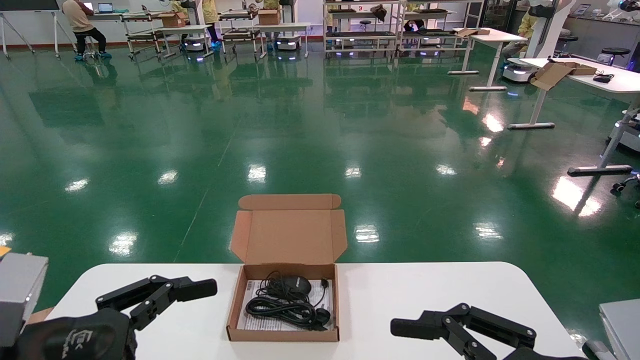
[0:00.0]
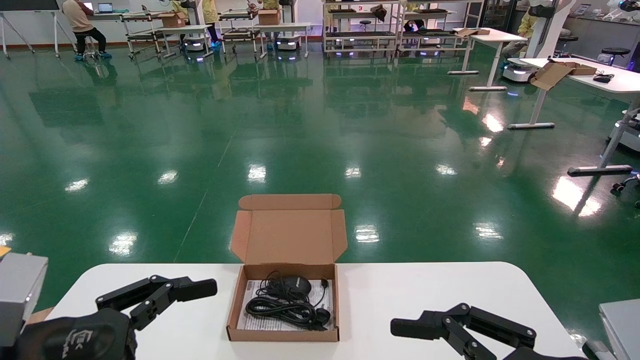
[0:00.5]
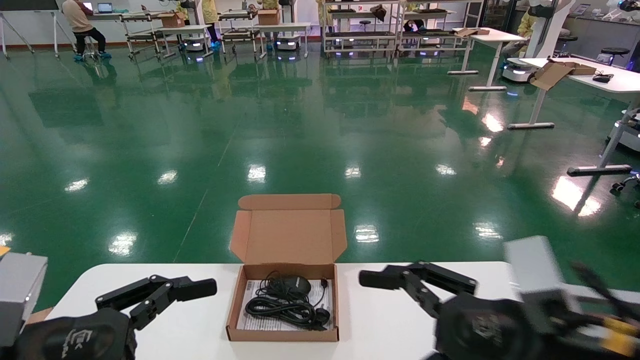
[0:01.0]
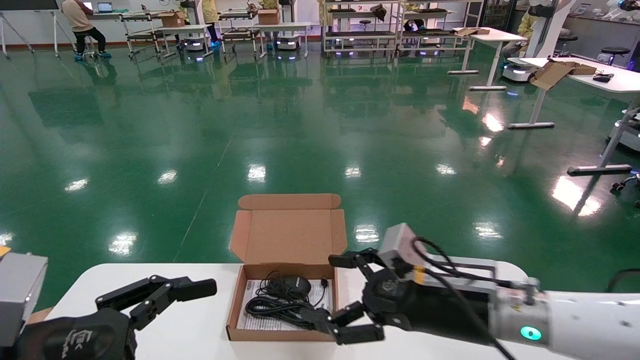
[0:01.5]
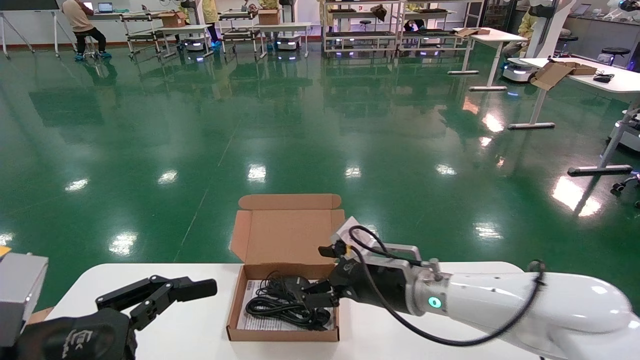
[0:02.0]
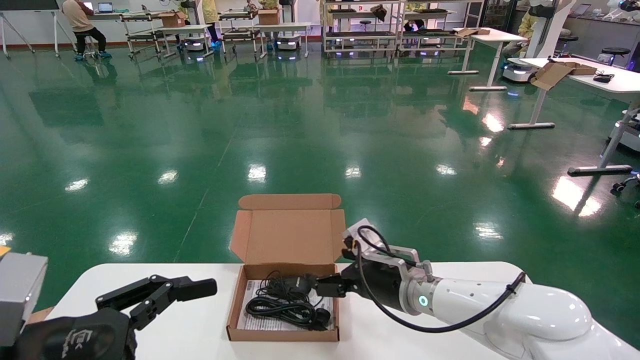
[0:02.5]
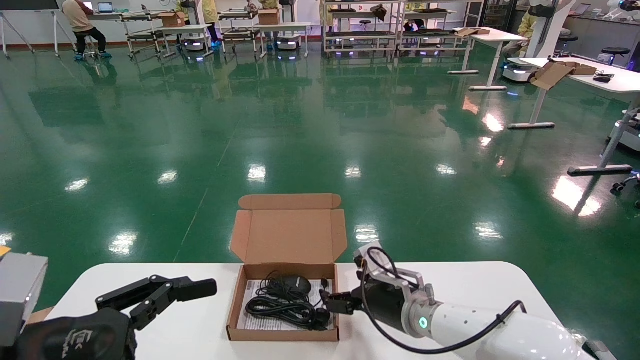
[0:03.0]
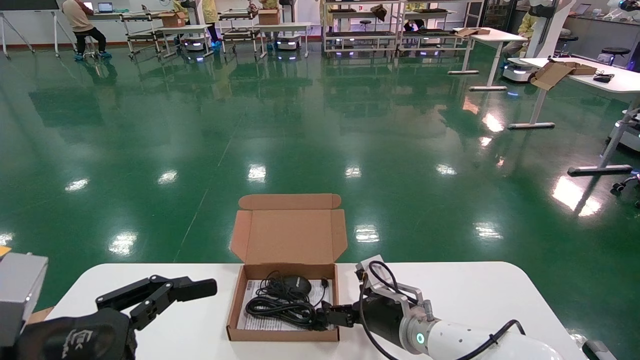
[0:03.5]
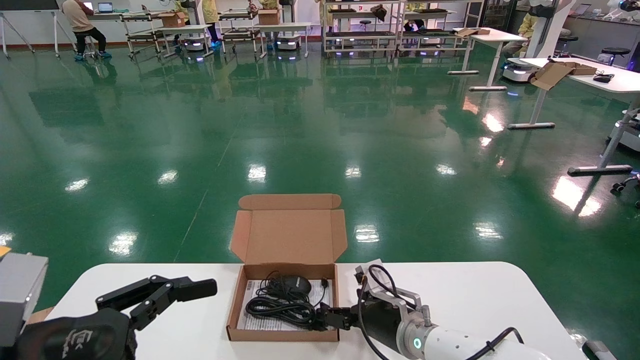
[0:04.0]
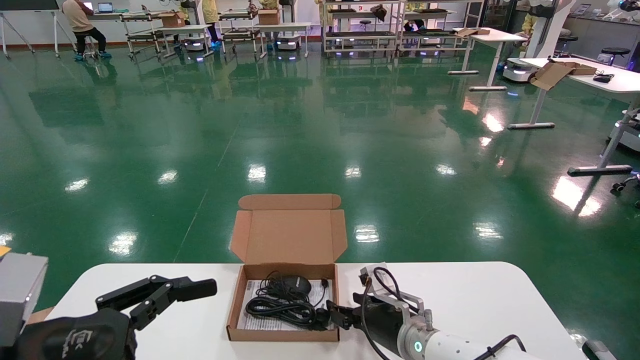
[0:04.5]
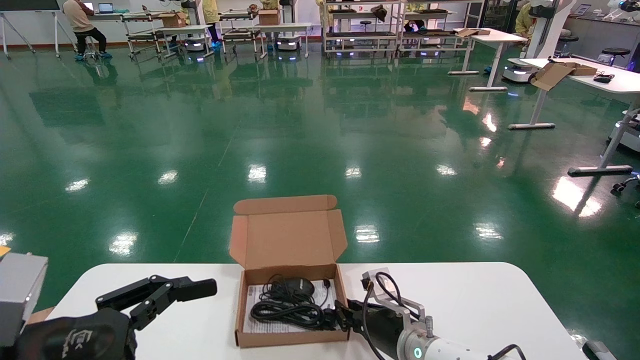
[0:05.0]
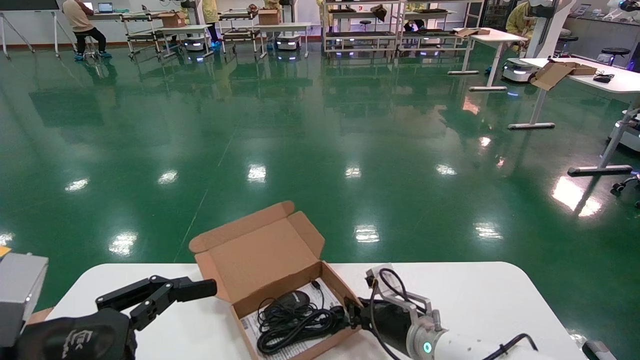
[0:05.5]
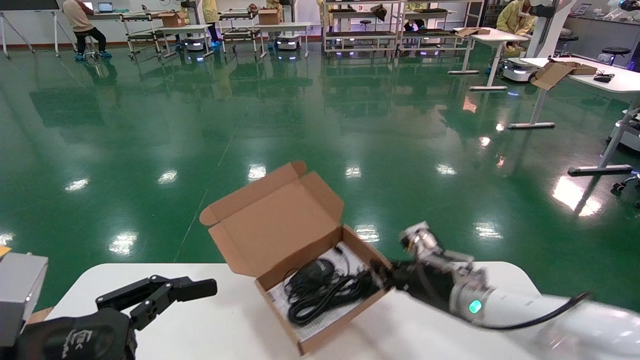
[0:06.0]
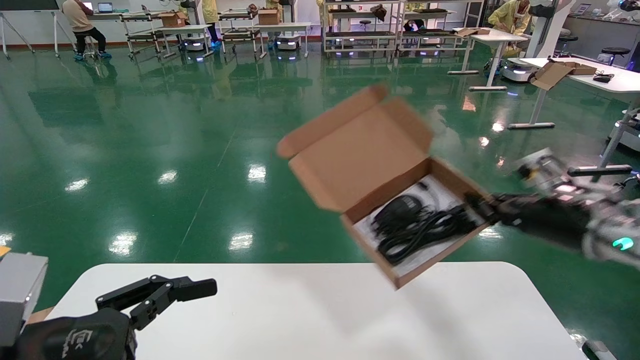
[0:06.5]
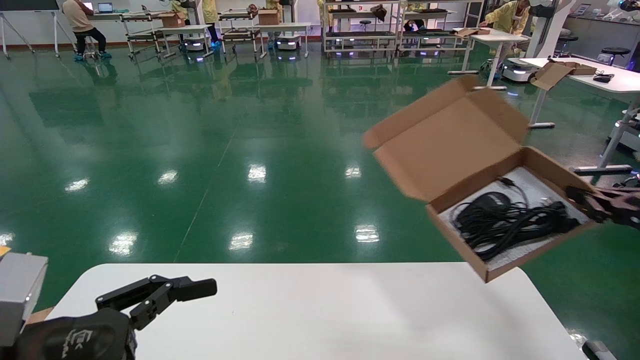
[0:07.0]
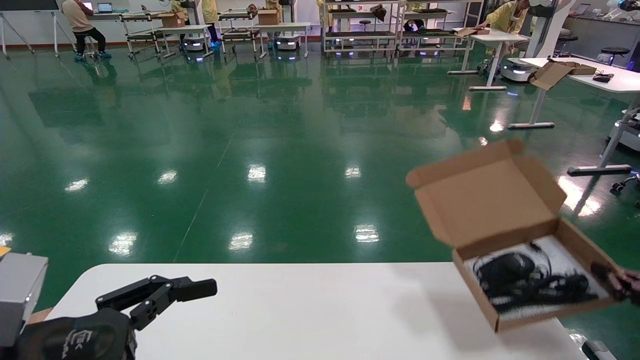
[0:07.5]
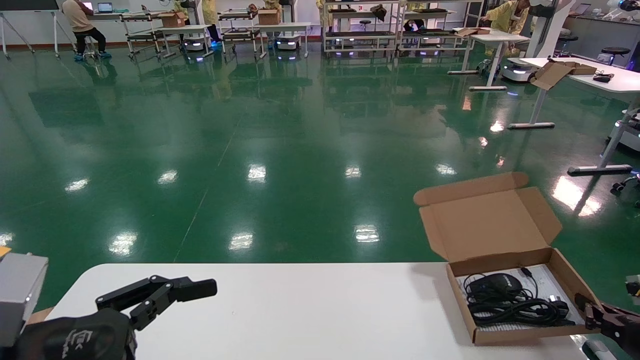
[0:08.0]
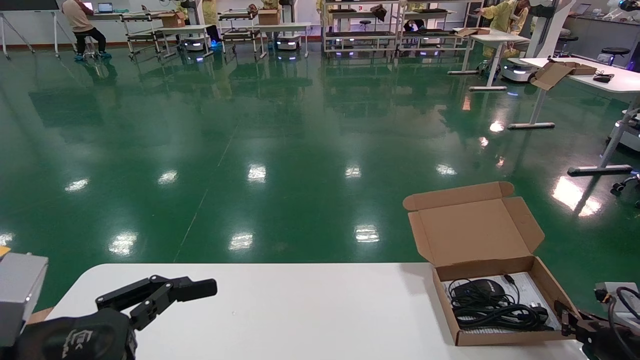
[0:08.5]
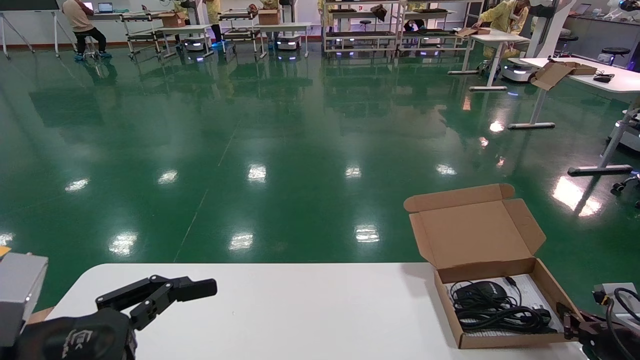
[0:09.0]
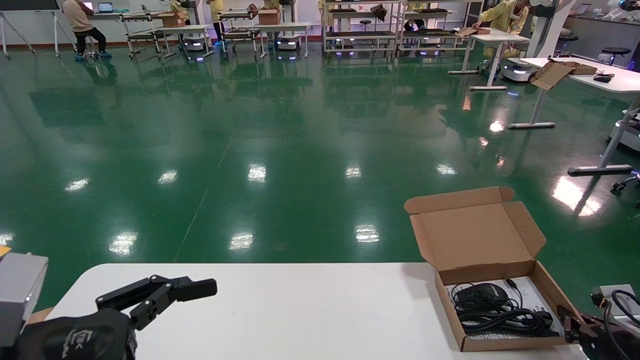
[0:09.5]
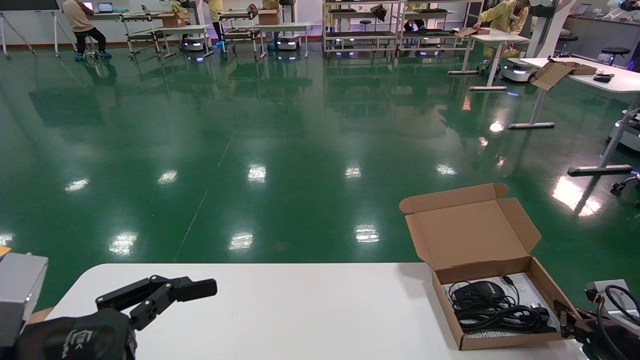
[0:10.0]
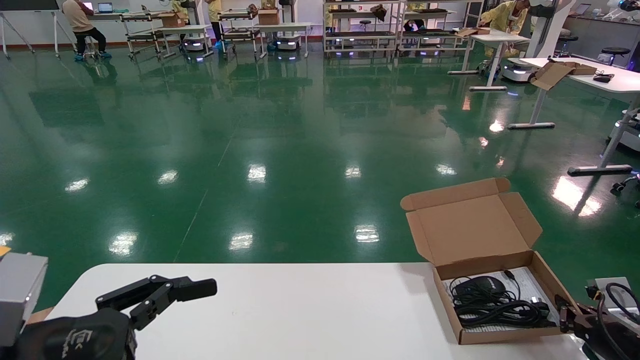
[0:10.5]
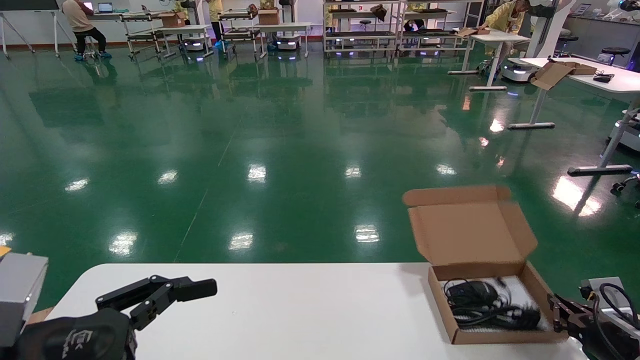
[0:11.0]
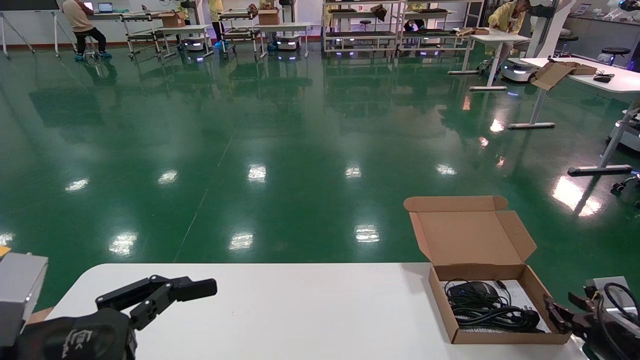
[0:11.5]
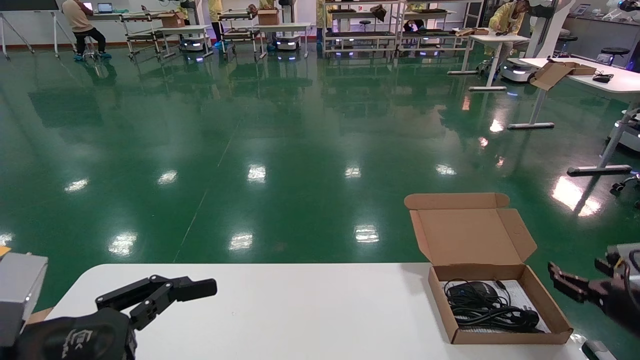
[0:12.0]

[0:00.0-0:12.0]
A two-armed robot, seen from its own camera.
Task of the whole recording: move the position of the storage box with accessories on the table.
Step, 0:01.0 to 0:05.0: Grab and pick up the open mouse box from the accessory packaging area.
Step, 0:05.5 to 0:11.0: Place the open mouse box onto the operation table.
0:00.0 to 0:02.0: The right gripper heads forward and to the left, covering approximately 30 cm.
0:02.0 to 0:04.0: The right gripper heads downward, covering some 10 cm.
0:04.0 to 0:06.0: The right gripper heads to the right and upward, covering roughly 10 cm, and closes its fingers.
0:06.0 to 0:08.0: The right gripper travels to the right by some 25 cm.
0:08.0 to 0:10.0: The grippers stay close to where they were, moving slightly.
0:10.0 to 0:12.0: The right gripper travels upward by roughly 5 cm, and opens up.

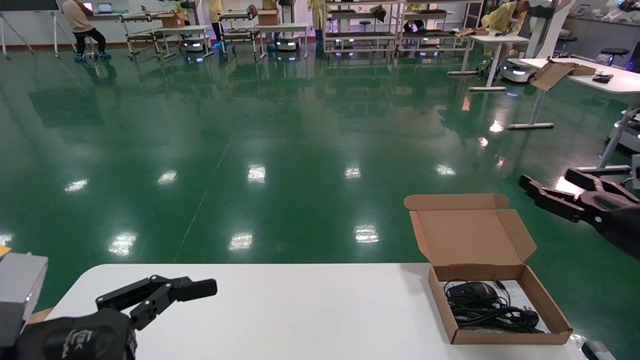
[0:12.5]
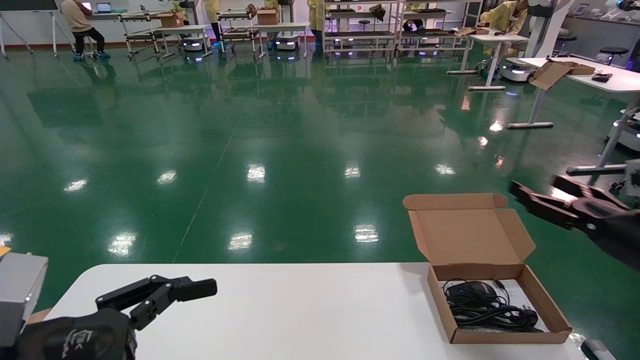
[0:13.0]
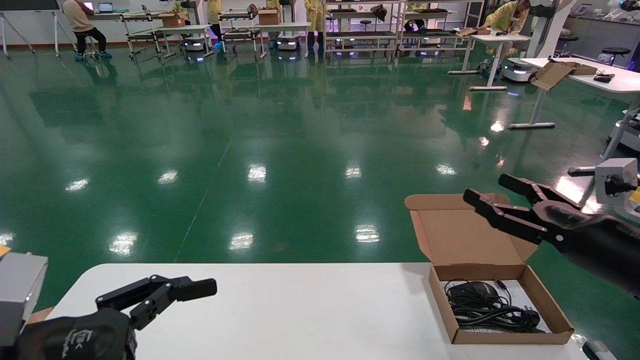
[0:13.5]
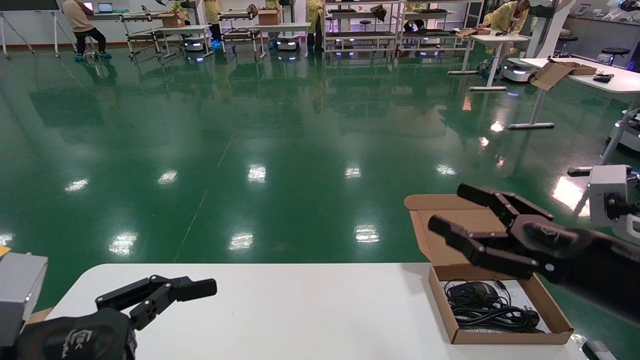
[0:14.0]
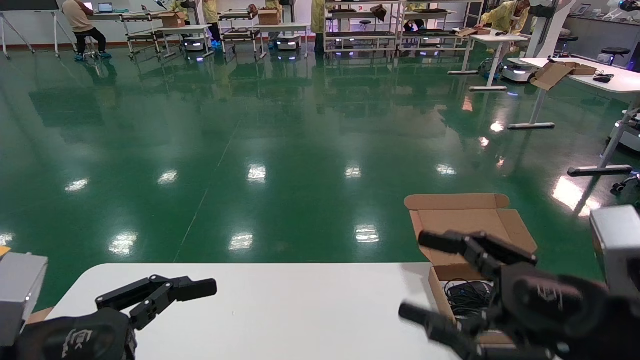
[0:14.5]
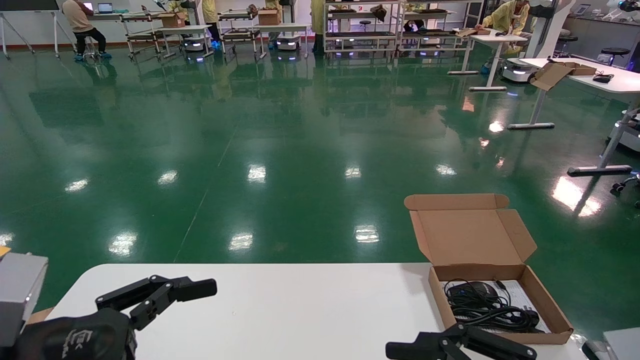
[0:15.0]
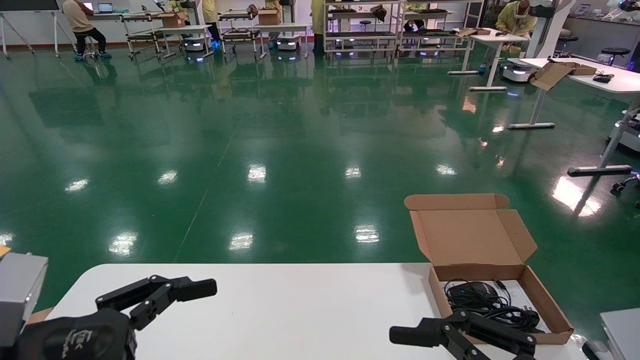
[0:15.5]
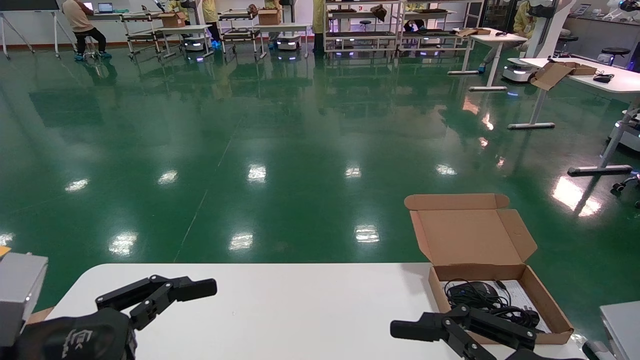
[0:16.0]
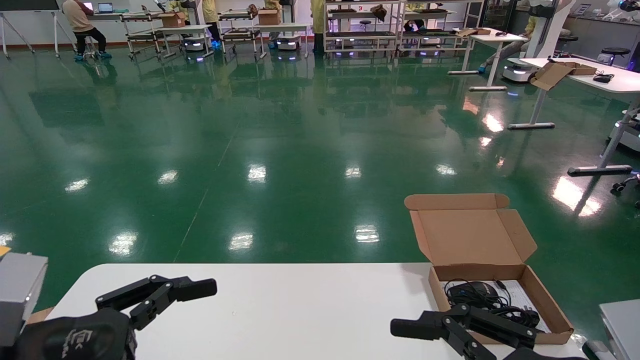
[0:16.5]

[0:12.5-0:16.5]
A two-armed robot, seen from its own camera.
Task of the whole recording: move the position of the storage box with accessories on the table.
0:12.5 to 0:14.5: The right gripper goes roughly 25 cm to the left and backward.
0:14.5 to 0:16.5: The right gripper heads backward, covering approximately 5 cm.
